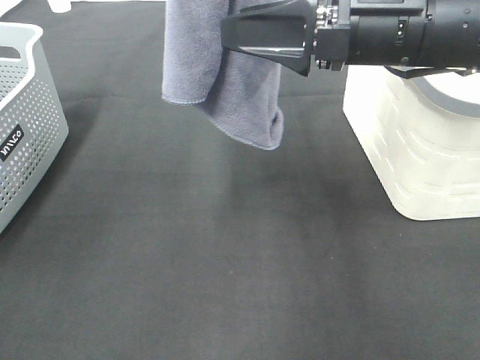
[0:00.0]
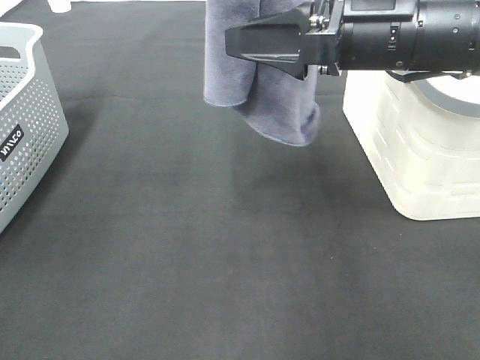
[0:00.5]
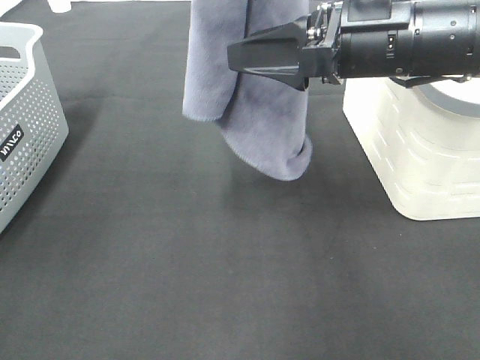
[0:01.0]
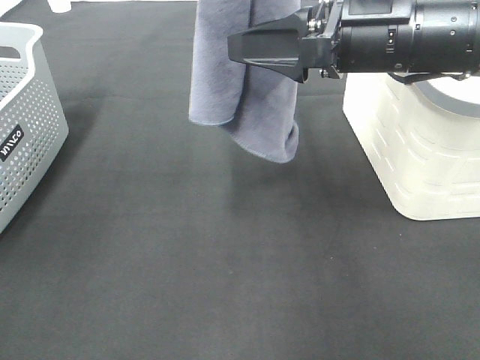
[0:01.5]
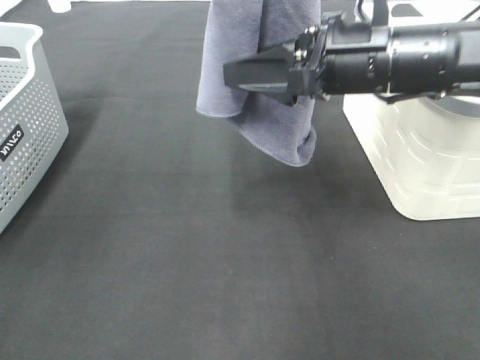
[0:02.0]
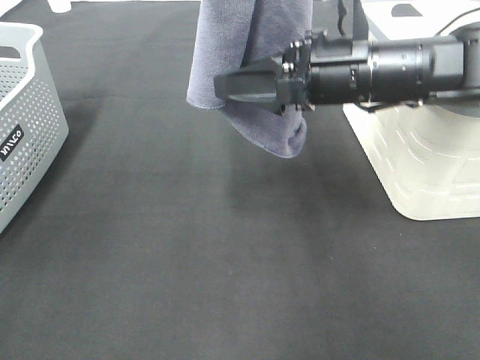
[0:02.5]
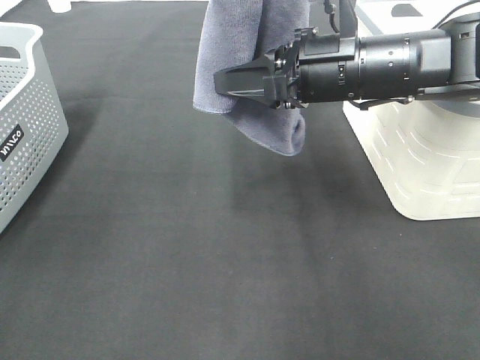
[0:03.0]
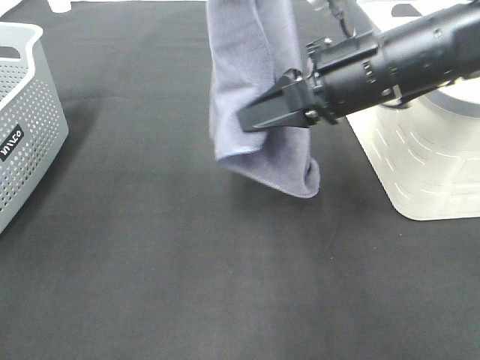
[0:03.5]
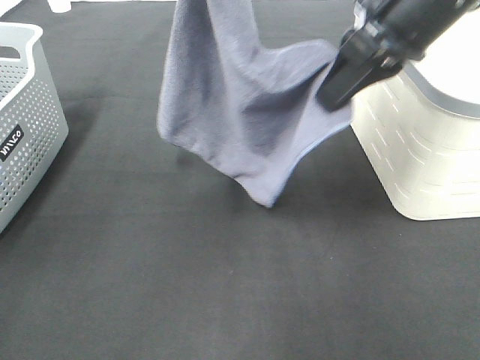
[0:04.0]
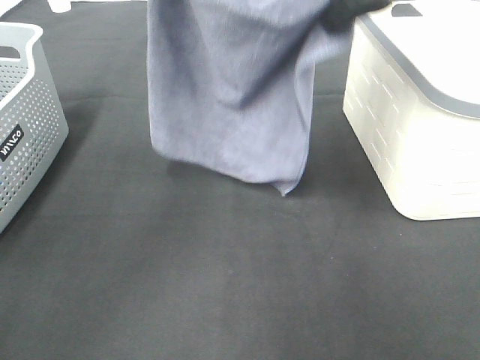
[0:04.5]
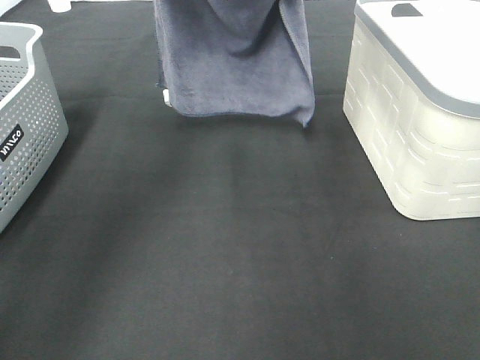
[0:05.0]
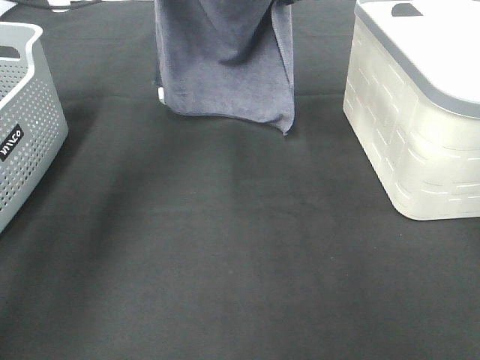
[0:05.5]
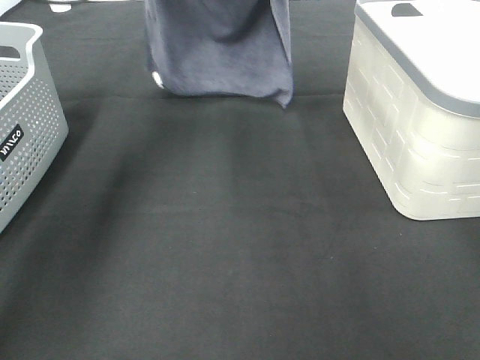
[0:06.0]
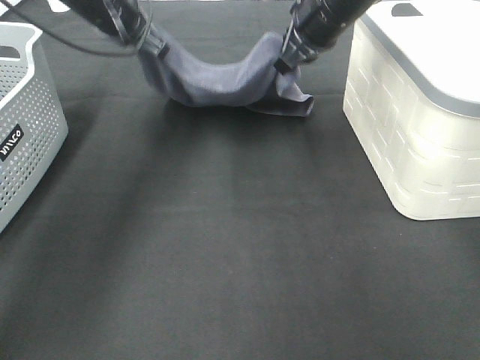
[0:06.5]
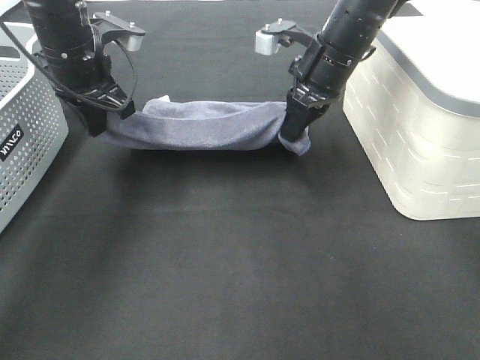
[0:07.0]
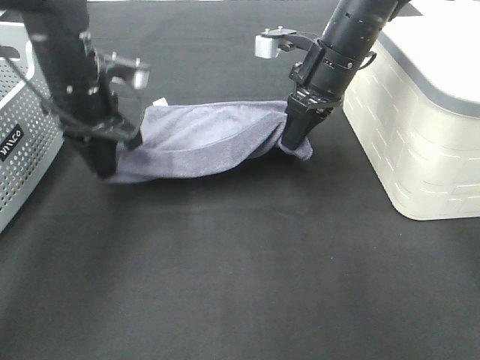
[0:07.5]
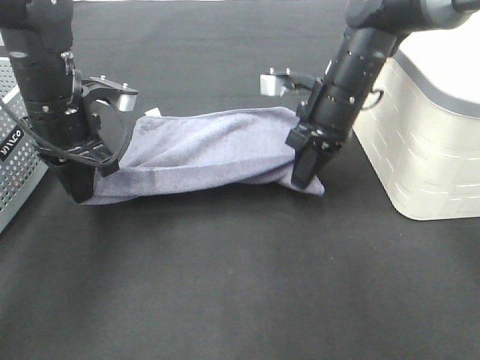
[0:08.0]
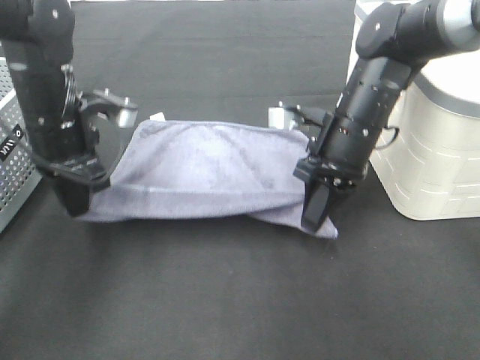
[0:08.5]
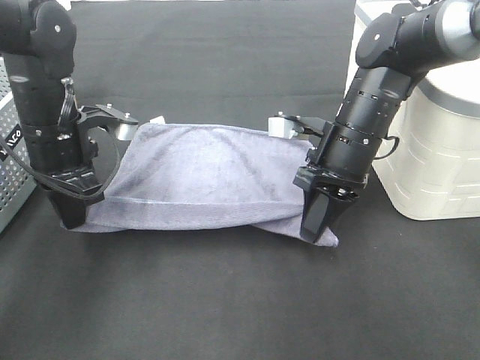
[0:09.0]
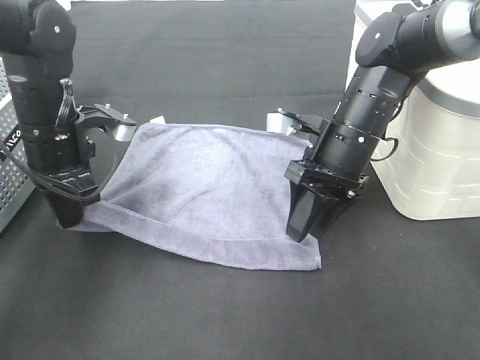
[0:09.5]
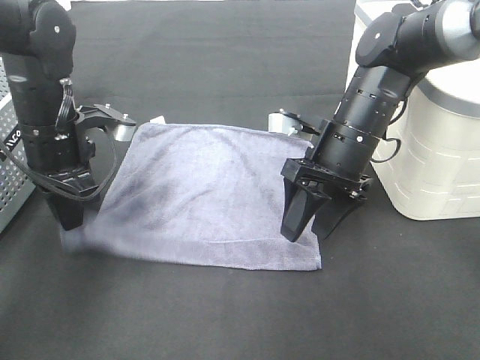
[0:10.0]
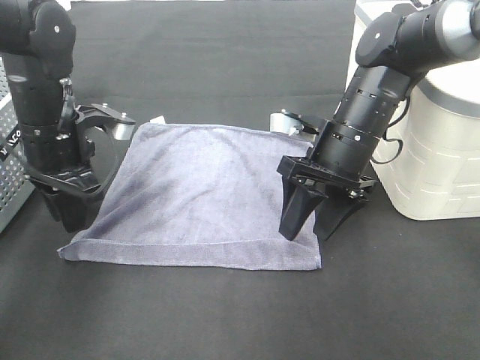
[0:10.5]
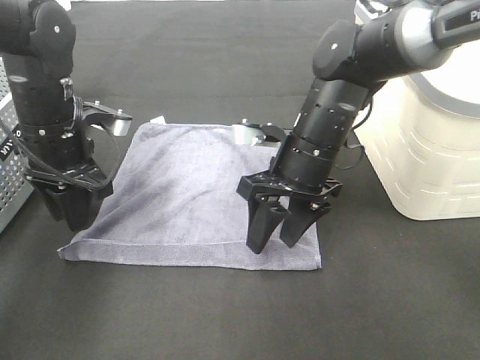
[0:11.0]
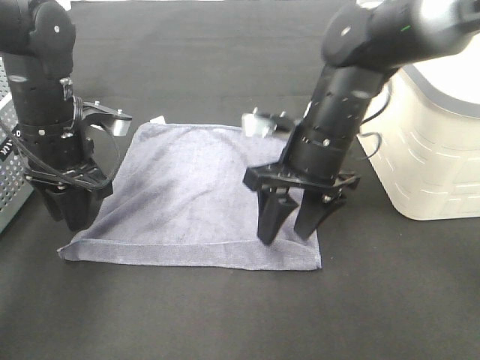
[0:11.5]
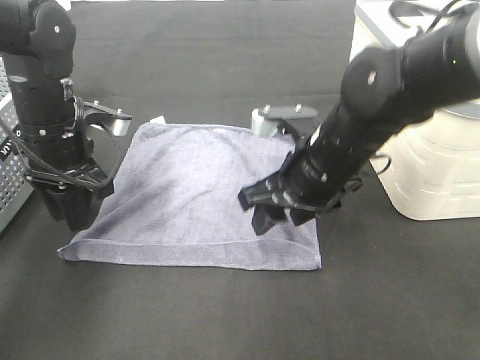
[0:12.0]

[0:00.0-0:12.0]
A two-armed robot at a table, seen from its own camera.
Task of the whole recording: Remove the towel and place it.
Step, 0:01.5 to 0:05.0: Right hand: spread the grey towel flat on the table.
Step, 0:01.5 to 0:05.5: Left hand: spread the grey towel flat on the table.
Step, 0:06.0 to 0:09.5: Right hand:adjust the gray towel.
0:00.0 to 0:02.0: The grippers stay close to where they were, moving slightly.
0:02.0 to 0:04.0: The right gripper heads upward, covering some 10 cm, and closes its fingers, while the left gripper ends up approximately 5 cm from where it was.
0:04.0 to 0:06.0: The right gripper travels forward by approximately 20 cm. Meanwhile the left gripper goes approximately 25 cm forward, downward and to the left.
0:06.0 to 0:08.0: The right gripper goes approximately 15 cm downward and backward. Meanwhile the left gripper heads backward and downward, covering approximately 20 cm.
0:08.0 to 0:10.0: The right gripper travels backward by roughly 5 cm, and opens its fingers.
0:10.0 to 0:12.0: The right gripper shifts roughly 5 cm backward.

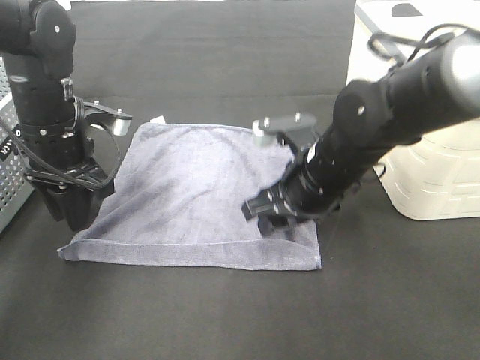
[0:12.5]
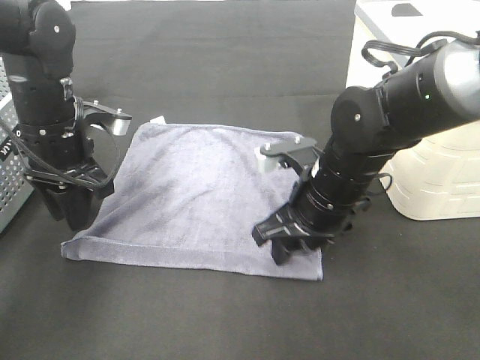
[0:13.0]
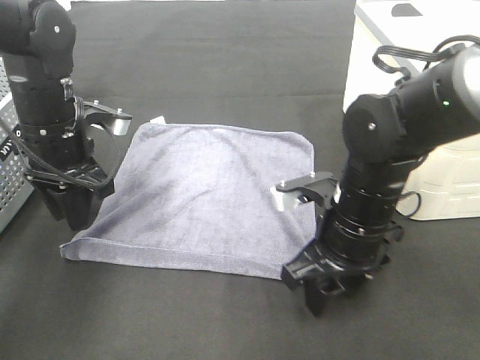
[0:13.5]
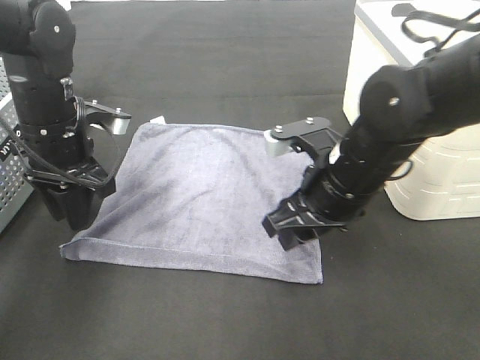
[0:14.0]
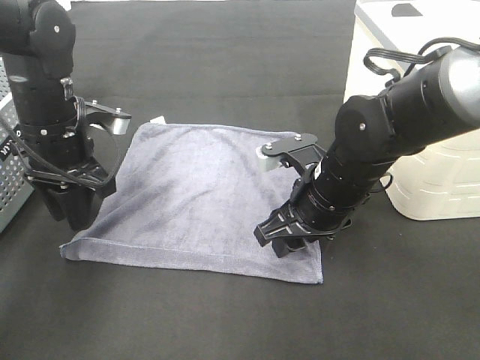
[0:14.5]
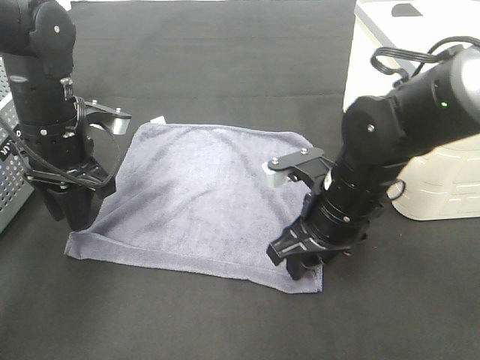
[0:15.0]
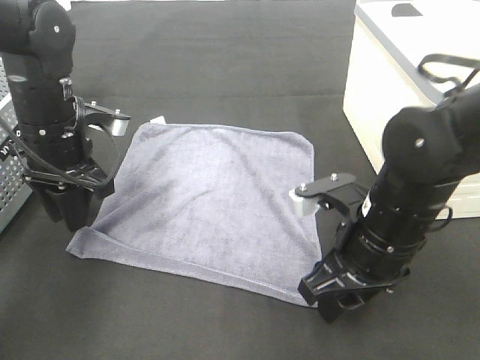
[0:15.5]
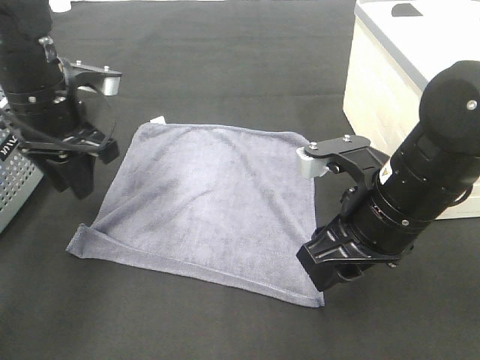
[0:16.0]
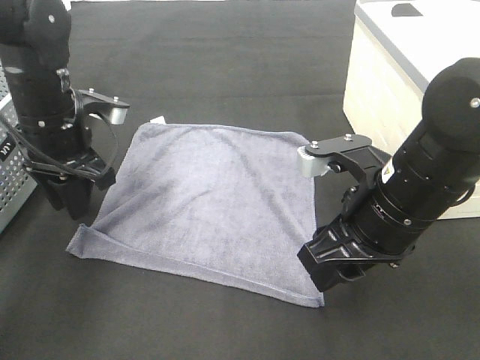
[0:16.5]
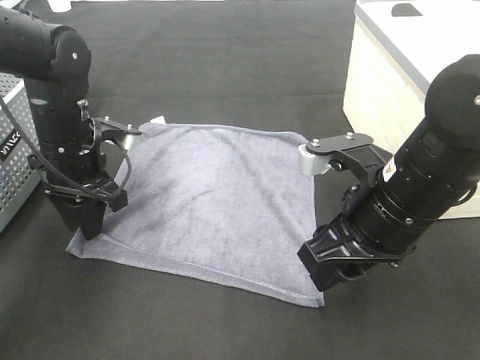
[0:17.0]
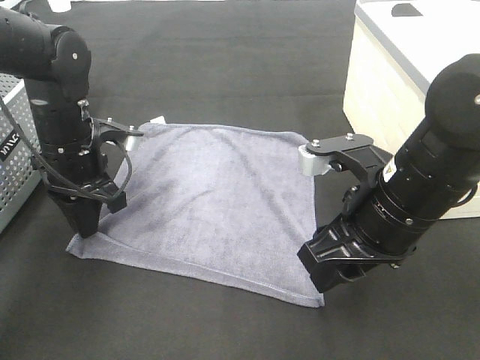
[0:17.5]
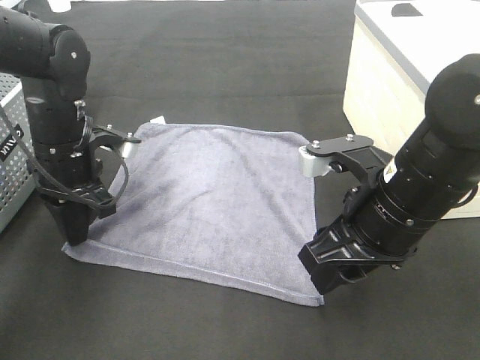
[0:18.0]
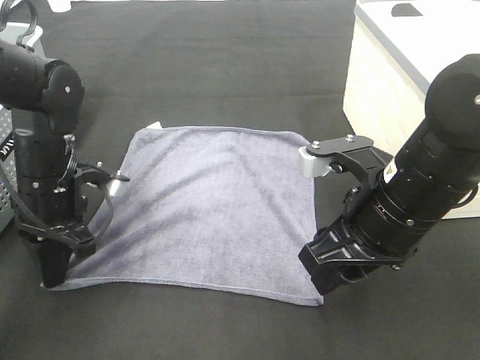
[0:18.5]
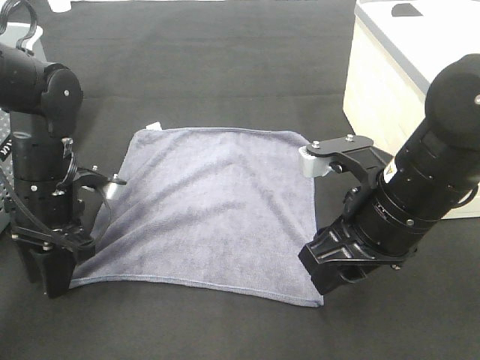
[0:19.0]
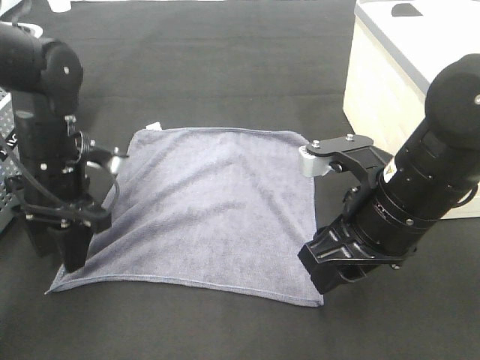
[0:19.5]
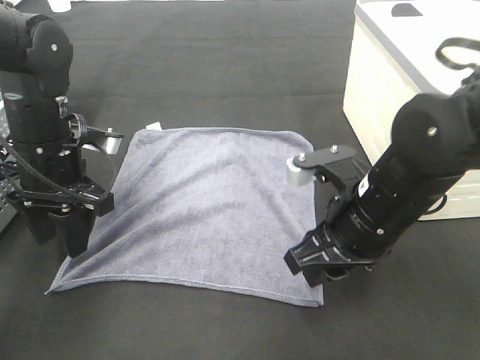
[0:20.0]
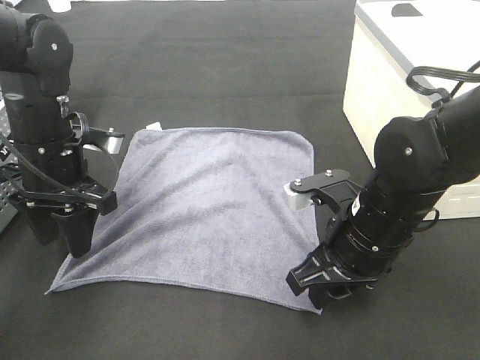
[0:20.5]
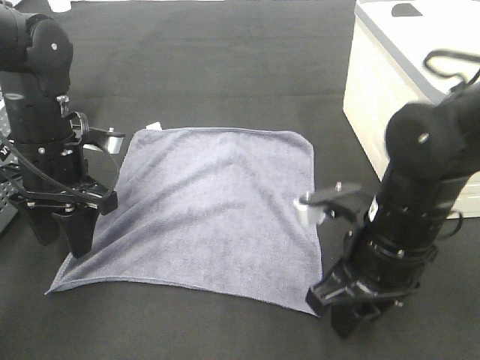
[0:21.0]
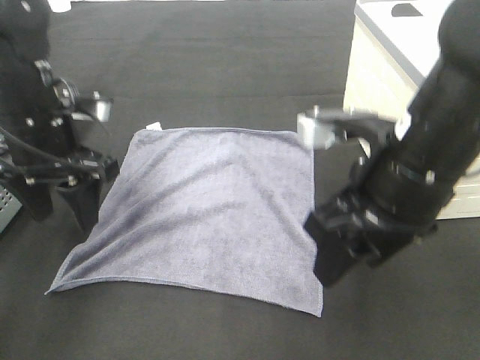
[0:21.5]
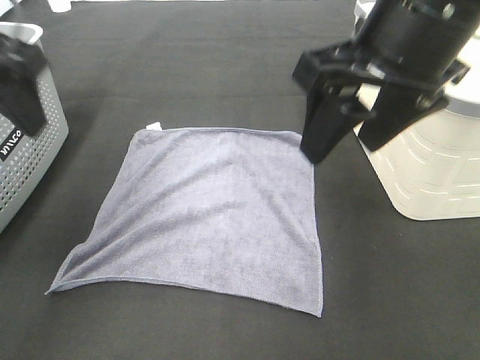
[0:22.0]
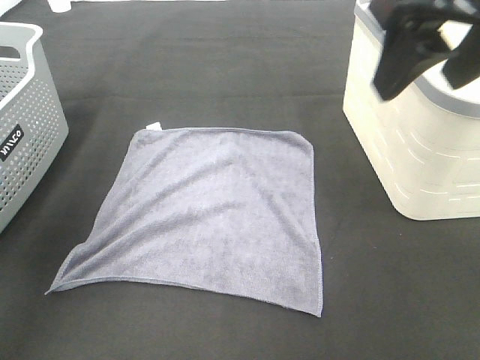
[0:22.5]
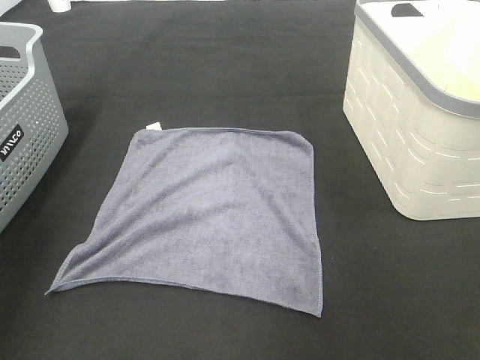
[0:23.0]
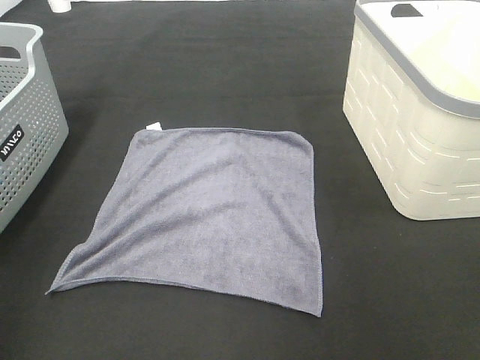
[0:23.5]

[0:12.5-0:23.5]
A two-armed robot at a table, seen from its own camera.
Task of the whole recording: Remove the towel and place it.
0:14.5 to 0:16.0: The right gripper moves backward and upward, some 10 cm.
0:16.0 to 0:18.0: The left gripper heads downward, covering approximately 5 cm.
0:18.0 to 0:20.0: The left gripper opens up.
0:20.0 to 0:21.5: The right gripper is displaced upward by approximately 10 cm.
0:21.5 to 0:23.5: The left gripper travels backward, upward and to the left by roughly 35 cm. Meanwhile the right gripper shifts some 25 cm upward, to the right and backward.

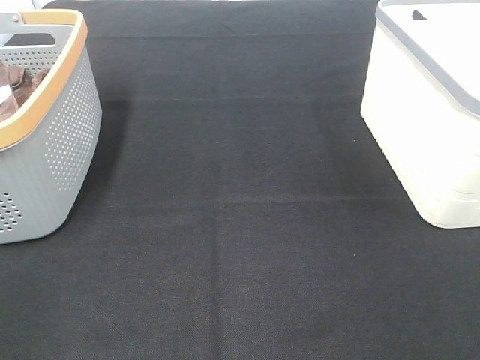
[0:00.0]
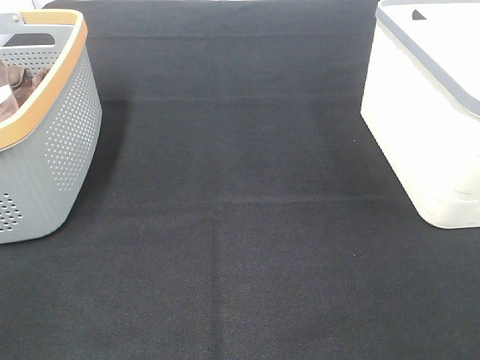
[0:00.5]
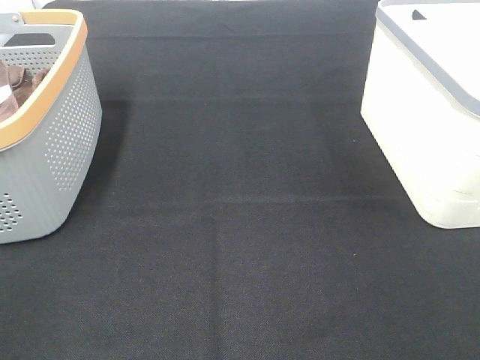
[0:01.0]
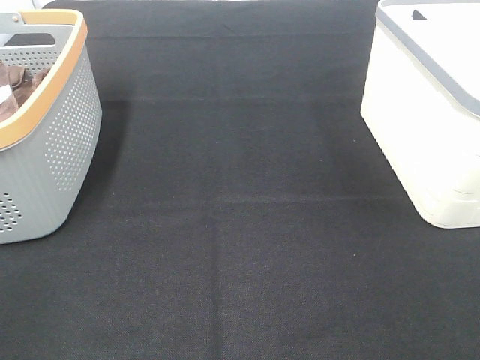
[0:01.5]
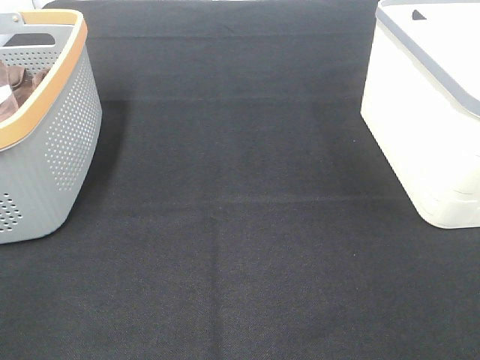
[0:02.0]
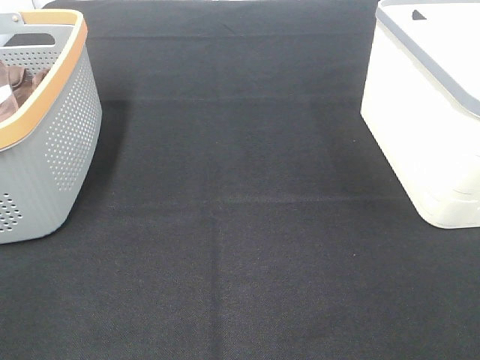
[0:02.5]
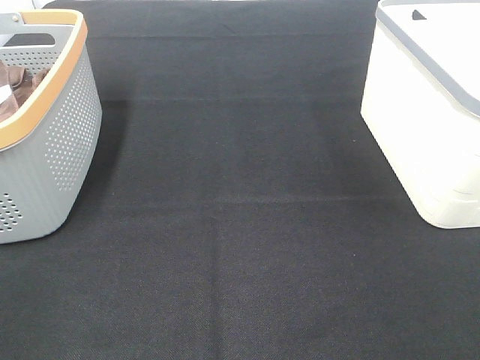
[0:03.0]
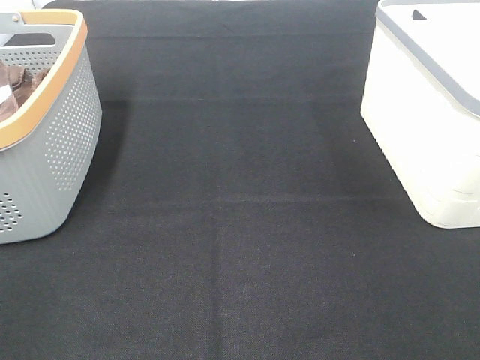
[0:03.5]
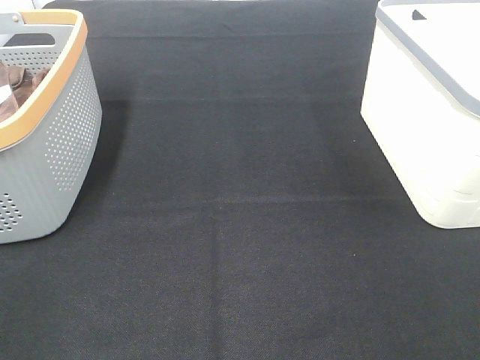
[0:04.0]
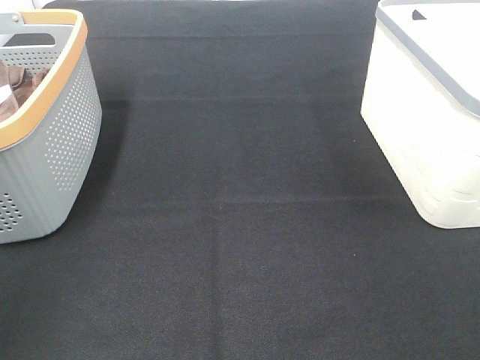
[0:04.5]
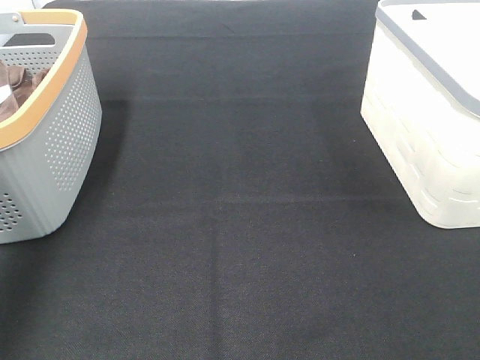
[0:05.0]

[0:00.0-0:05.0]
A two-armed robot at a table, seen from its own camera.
Task of the whole recording: Remove the towel and place it.
0:00.0 to 0:02.5: Both grippers stay put.
0:02.5 to 0:05.0: The left gripper moves forward, roughly 30 cm.
